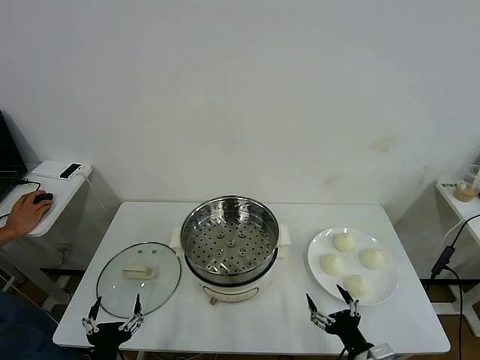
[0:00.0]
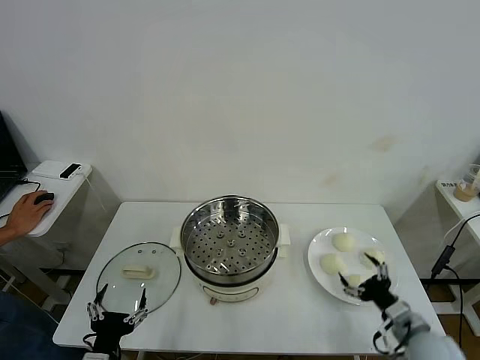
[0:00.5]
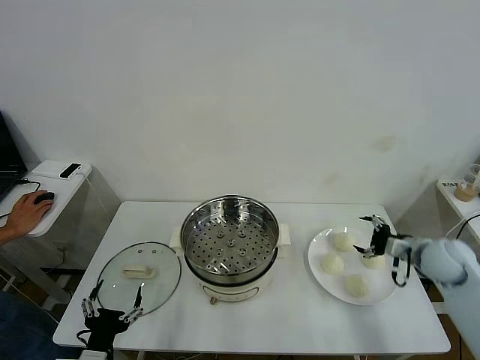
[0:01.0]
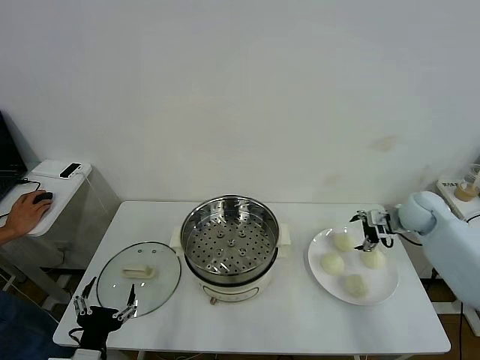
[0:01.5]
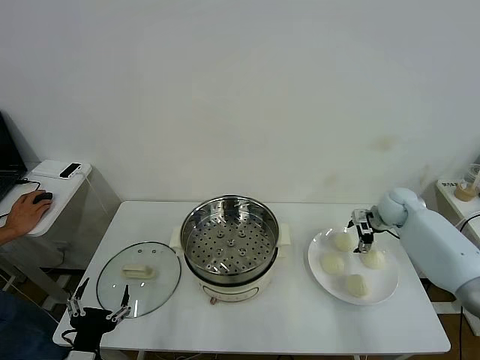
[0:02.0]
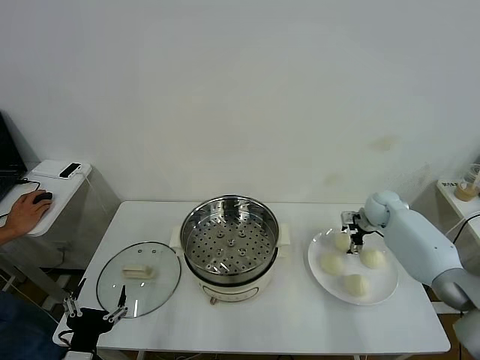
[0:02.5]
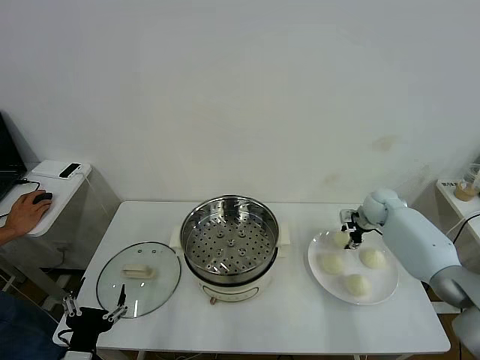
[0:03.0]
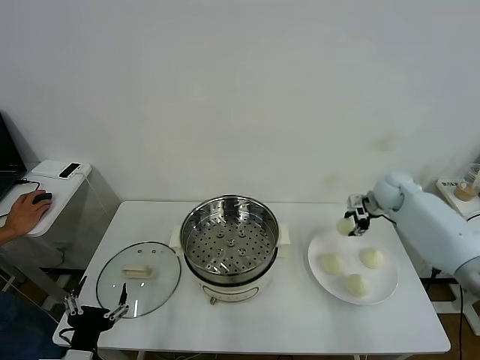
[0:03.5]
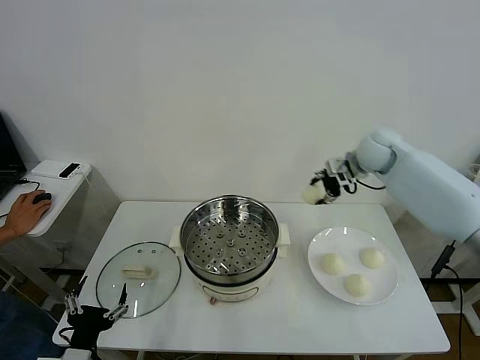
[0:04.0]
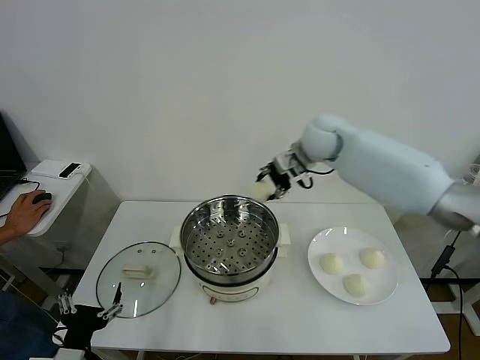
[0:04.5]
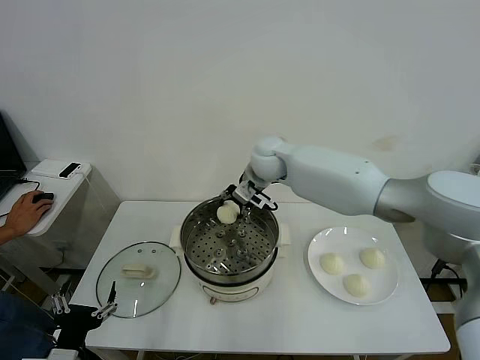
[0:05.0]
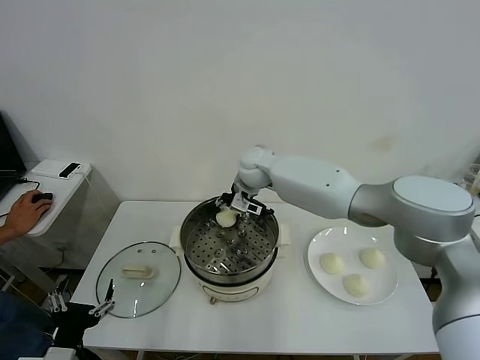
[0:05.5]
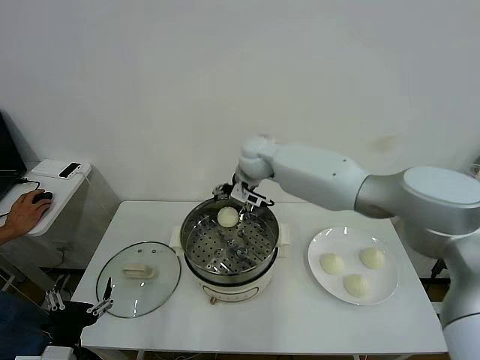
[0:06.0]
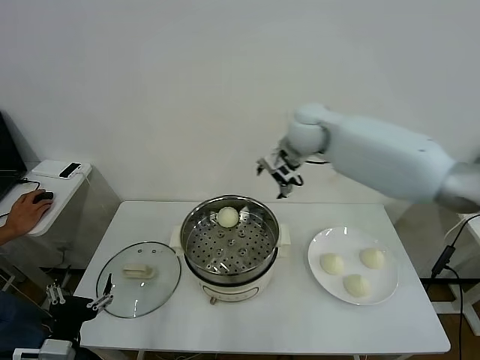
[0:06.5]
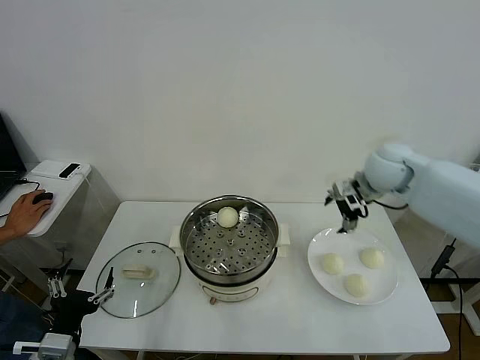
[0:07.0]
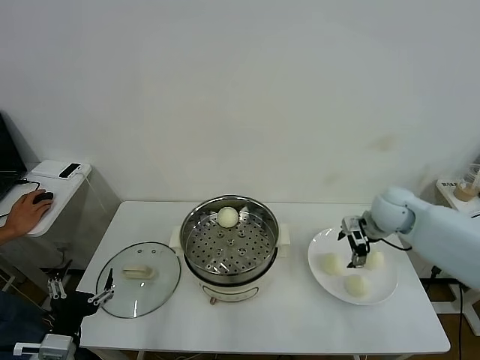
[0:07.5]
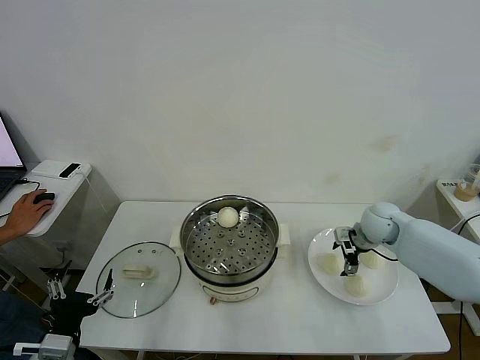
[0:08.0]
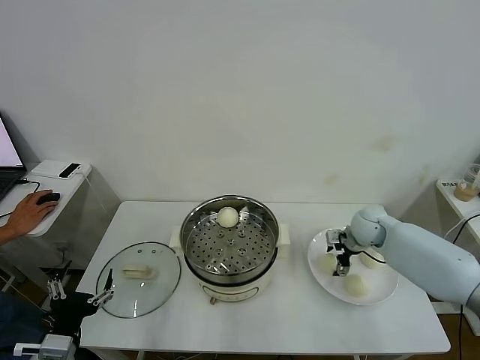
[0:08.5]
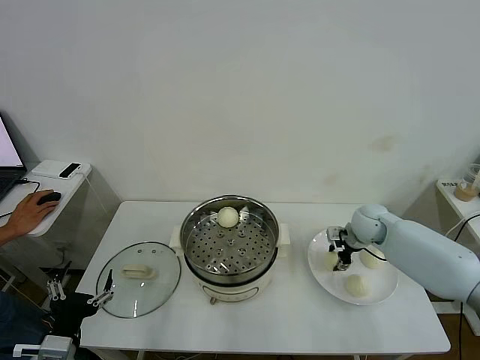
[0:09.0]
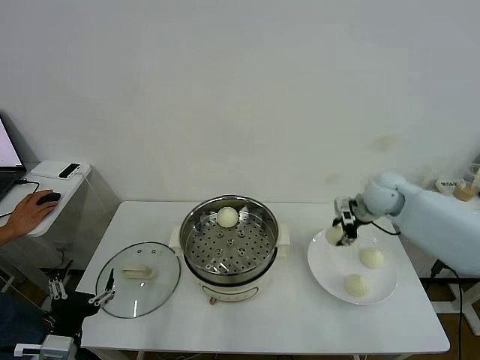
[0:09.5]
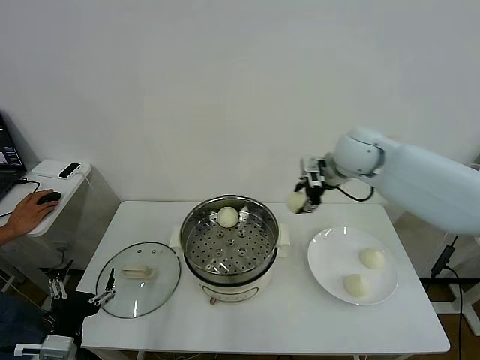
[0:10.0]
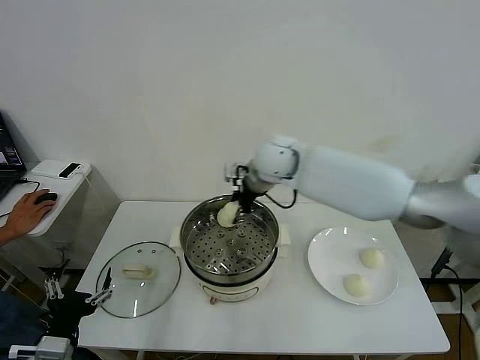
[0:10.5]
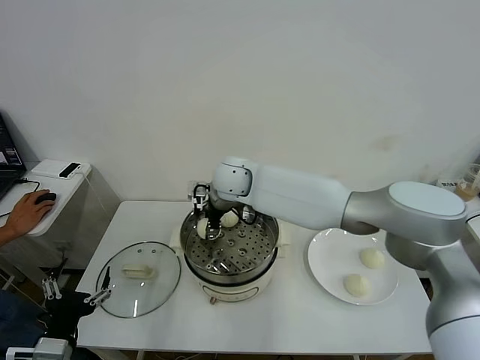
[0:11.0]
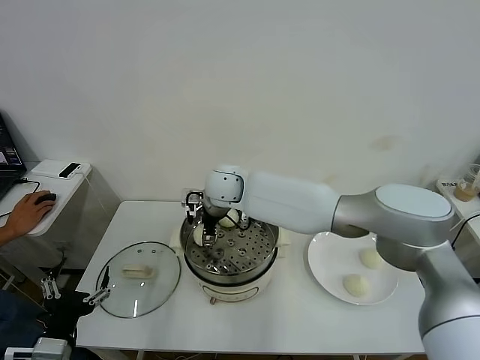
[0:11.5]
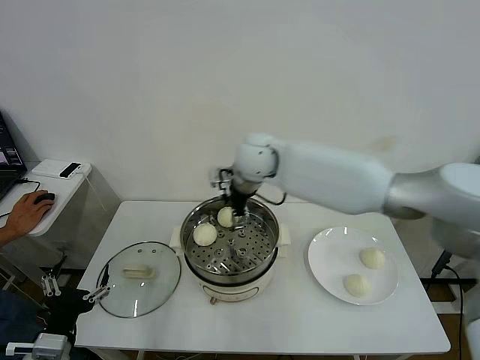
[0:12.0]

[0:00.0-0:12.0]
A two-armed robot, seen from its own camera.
Task of the whole recording: take steamed baozi put them in steamer then cover it.
Step, 0:00.0 to 0:02.5: Grasp the baozi in the plate with right gripper.
Step, 0:03.5 to 0:05.5: Place the baozi on the steamer with right gripper.
Step, 0:06.0 to 0:09.0: Grasp the baozi in the plate with right gripper.
Step, 0:09.5 to 0:11.5: Place the baozi on the steamer with right gripper.
0:02.0 to 0:04.0: The right gripper heads upward and to the left, covering about 20 cm, and closes its fingers.
0:04.0 to 0:06.0: The right gripper goes roughly 25 cm to the left, and opens.
0:06.0 to 0:08.0: The right gripper moves to the right and downward, approximately 35 cm.
0:08.0 to 0:10.0: The right gripper moves upward and to the left, roughly 20 cm, and closes up.
0:10.0 to 0:12.0: The right gripper is displaced to the left by approximately 20 cm, and opens up.

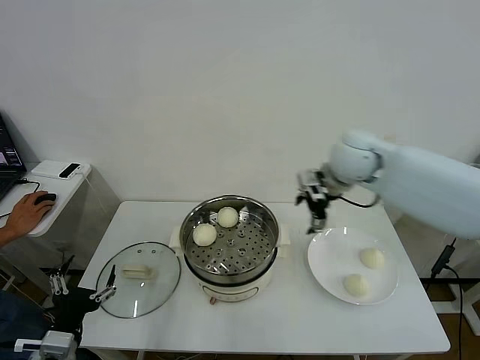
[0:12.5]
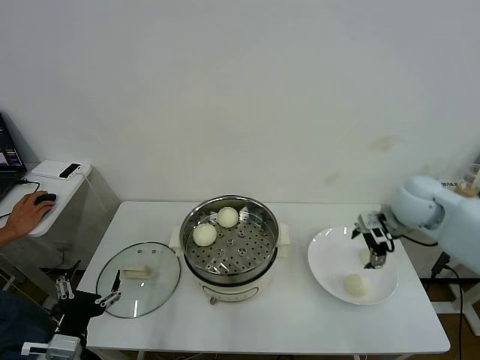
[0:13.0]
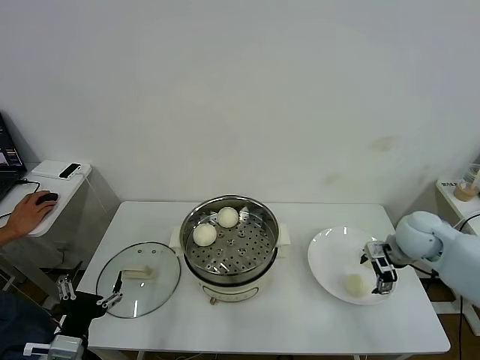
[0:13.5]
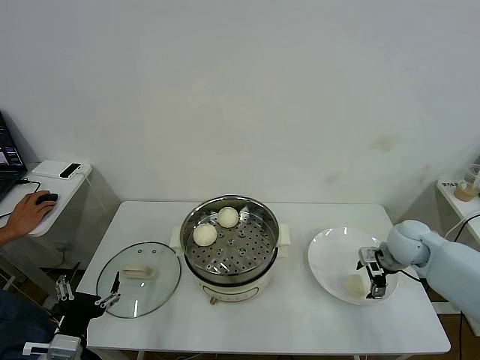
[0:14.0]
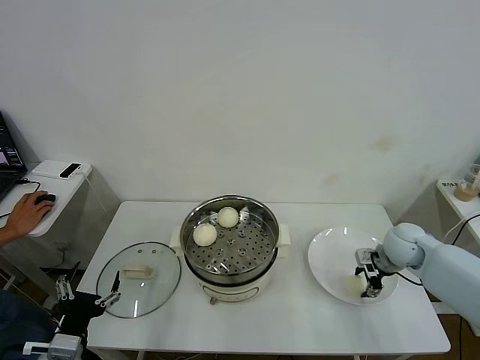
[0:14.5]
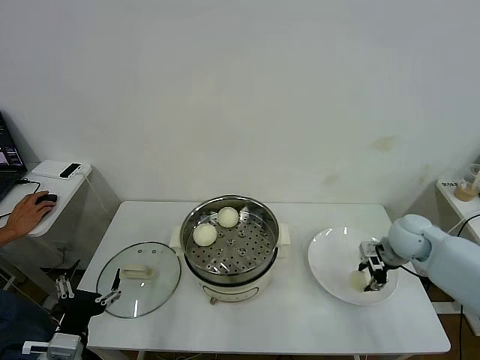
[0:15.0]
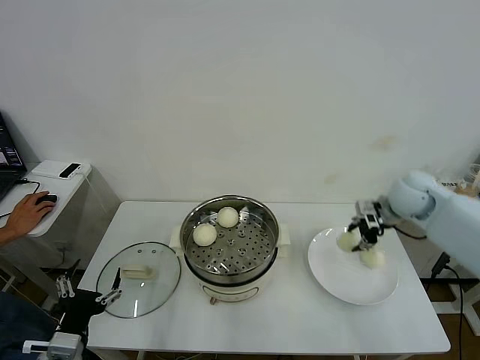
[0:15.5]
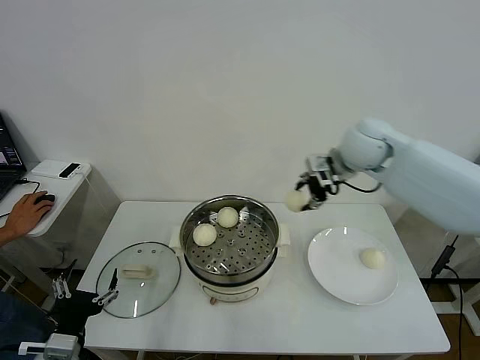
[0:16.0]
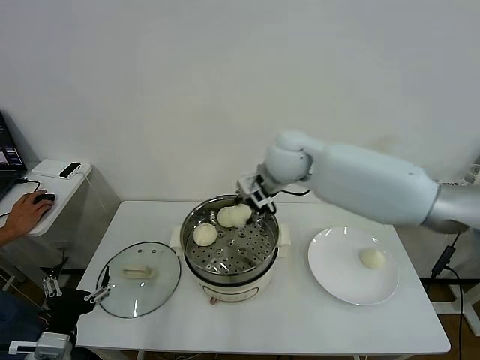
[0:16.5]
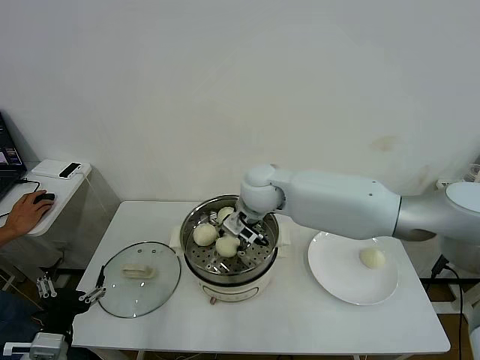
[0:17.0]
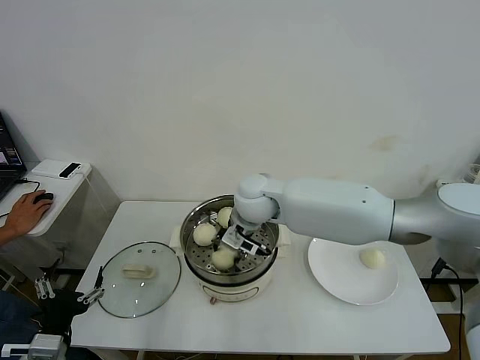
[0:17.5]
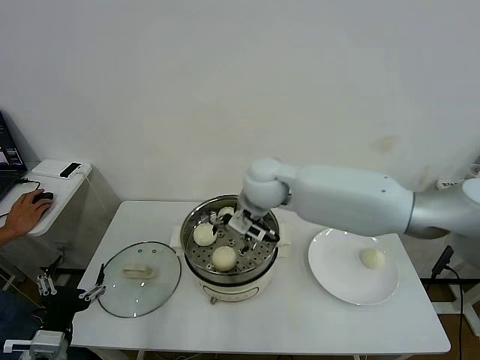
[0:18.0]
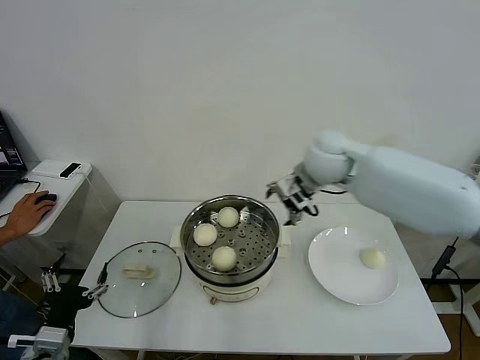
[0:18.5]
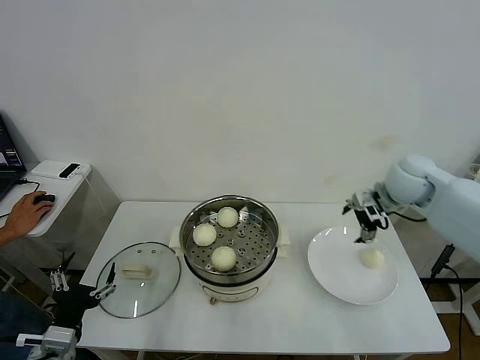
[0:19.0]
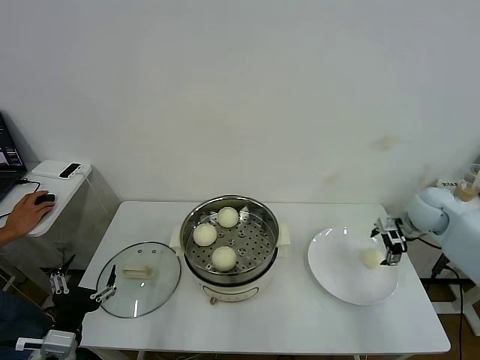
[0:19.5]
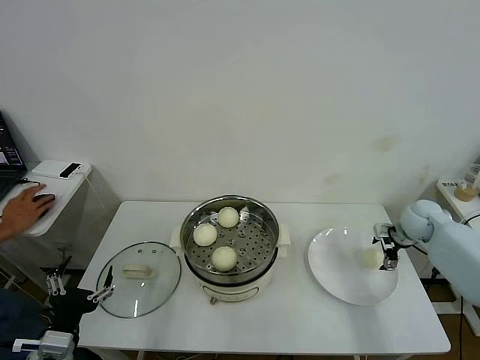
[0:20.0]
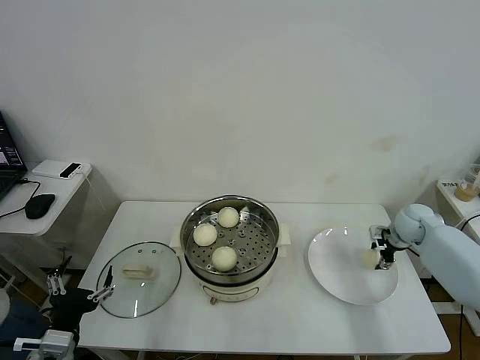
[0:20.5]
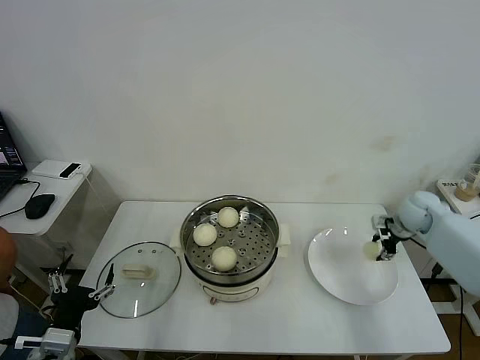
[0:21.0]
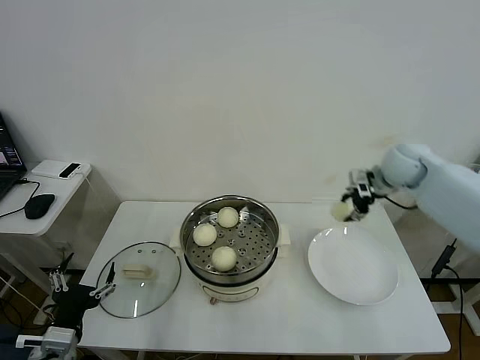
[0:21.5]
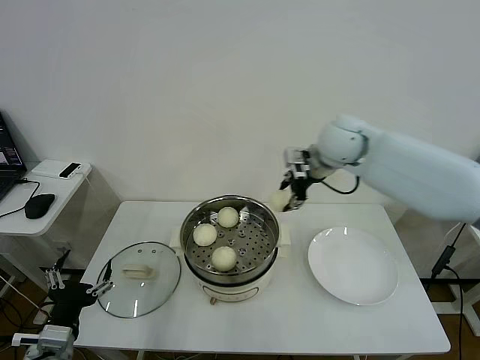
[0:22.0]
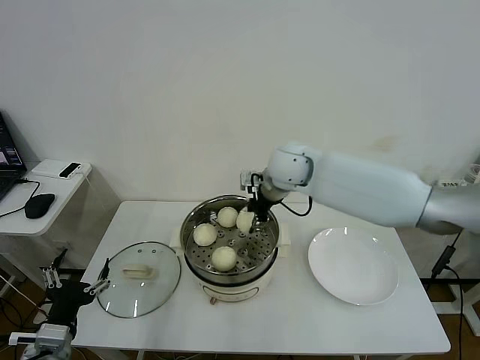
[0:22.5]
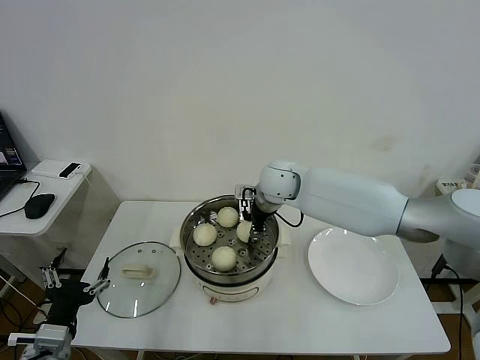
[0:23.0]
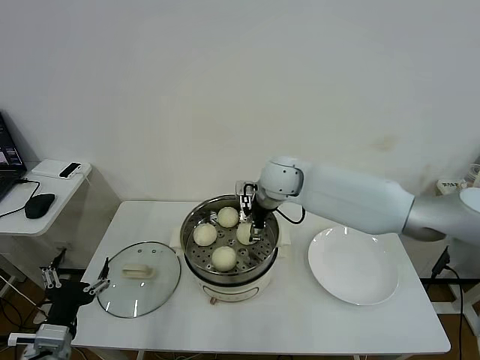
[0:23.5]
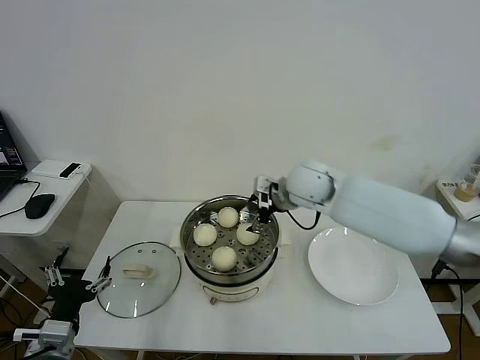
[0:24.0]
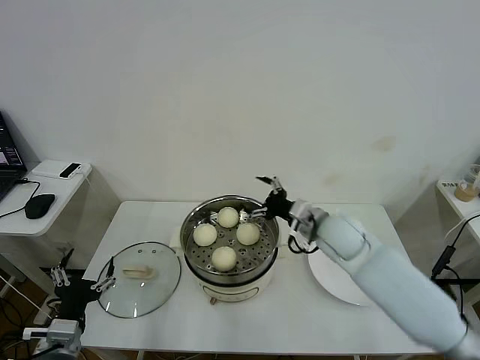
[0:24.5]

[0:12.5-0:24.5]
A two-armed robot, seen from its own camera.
Task of the whole recording: take steamed baozi put them in steamer then cover it.
Step, 0:12.5 to 0:14.5: Grasp the baozi in the plate with right gripper.
Step, 0:15.0 to 0:17.5: Place the baozi on the steamer with right gripper.
Step, 0:18.0 to 0:20.5: Grasp the baozi in the plate with right gripper.
Step, 0:21.0 to 0:23.0: Place the baozi on the steamer with right gripper.
0:12.5 to 0:14.5: The right gripper moves downward and to the right, approximately 25 cm, and closes its fingers.
0:14.5 to 0:16.5: The right gripper goes some 35 cm to the left and upward.
0:16.5 to 0:18.5: The right gripper moves to the right, roughly 5 cm, and opens.
0:18.5 to 0:20.5: The right gripper shifts about 35 cm to the right and downward, and closes.
0:20.5 to 0:22.5: The right gripper shifts roughly 40 cm to the left and upward.
0:22.5 to 0:24.5: The right gripper is displaced downward, backward and to the right by roughly 15 cm, and opens its fingers.

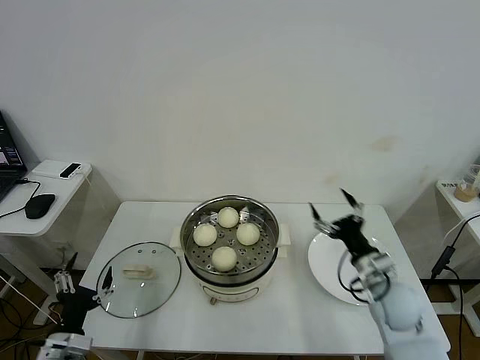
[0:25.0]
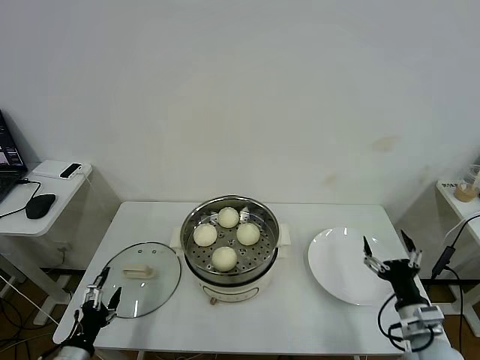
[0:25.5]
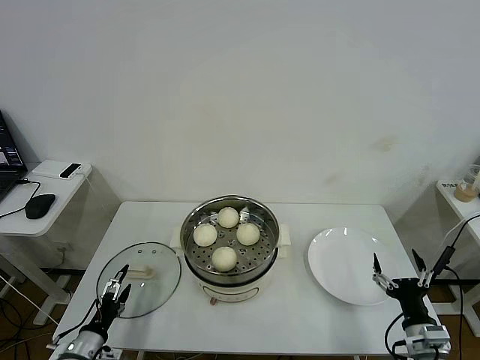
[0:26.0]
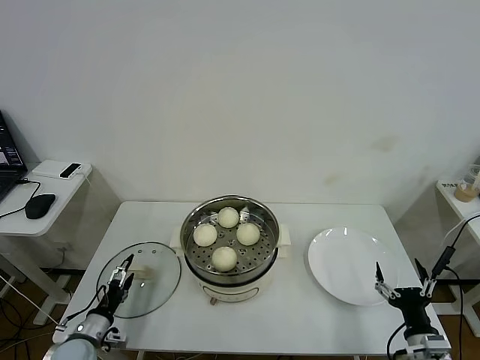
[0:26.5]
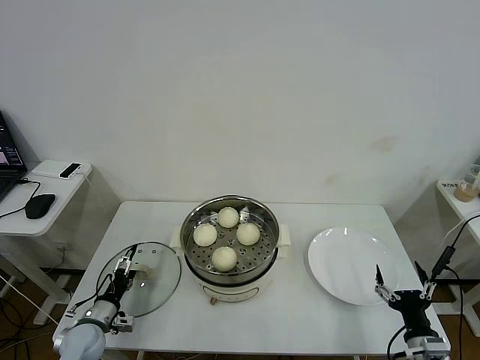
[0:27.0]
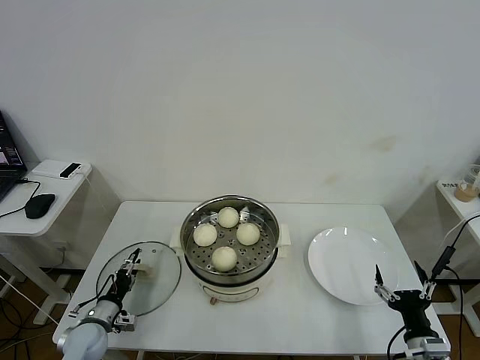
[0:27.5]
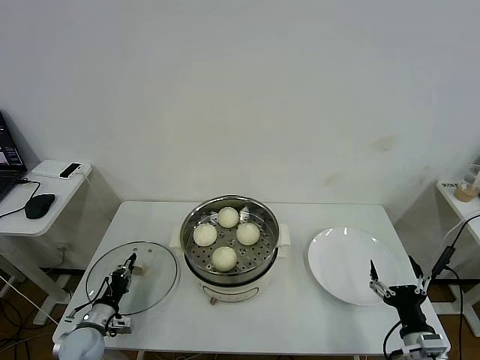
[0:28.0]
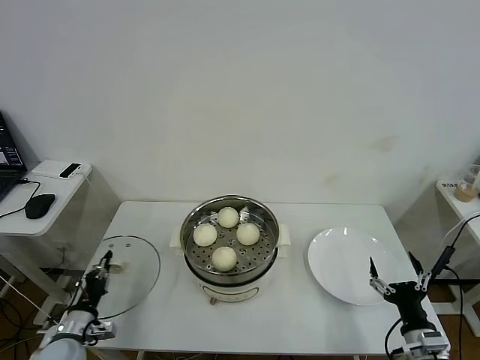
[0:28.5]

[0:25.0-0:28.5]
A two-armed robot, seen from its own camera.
Task of the whole recording: take steamed baozi put them in steamer then cover it.
Step, 0:25.0 to 0:27.5: Grasp the pot lid with left gripper.
0:25.0 to 0:27.0: The right gripper goes roughly 20 cm backward, downward and to the right; the left gripper moves downward and forward, about 15 cm.
0:27.0 to 0:28.5: The left gripper closes its fingers.
